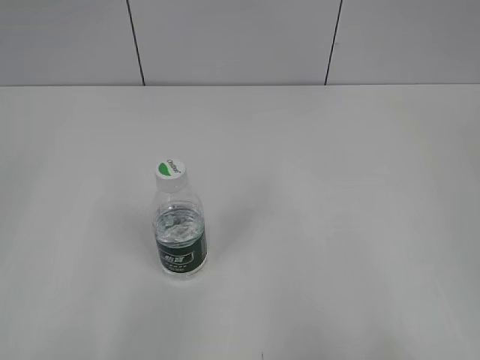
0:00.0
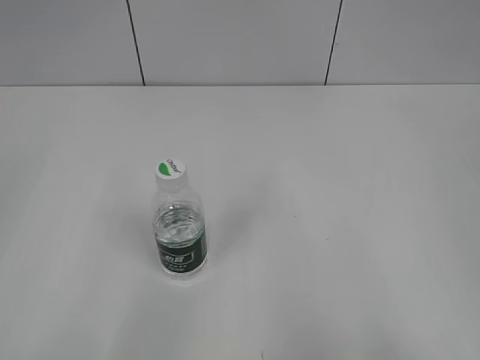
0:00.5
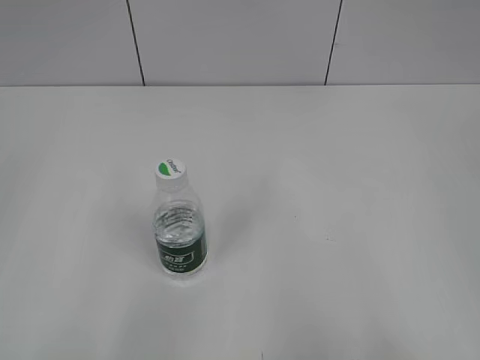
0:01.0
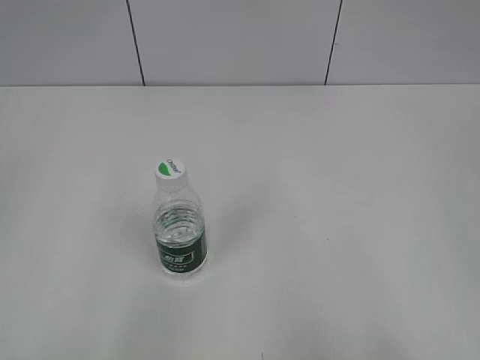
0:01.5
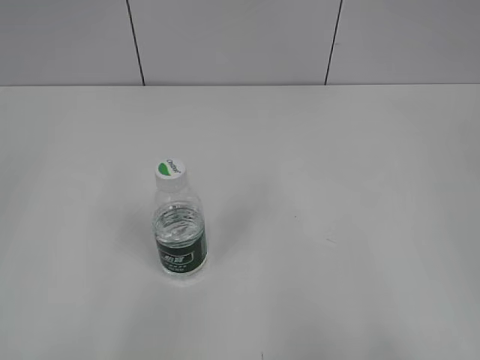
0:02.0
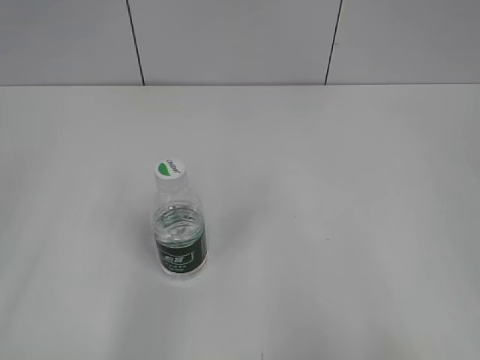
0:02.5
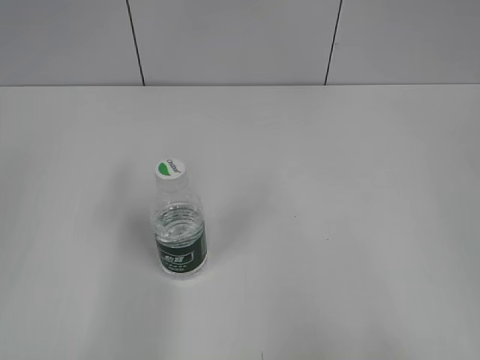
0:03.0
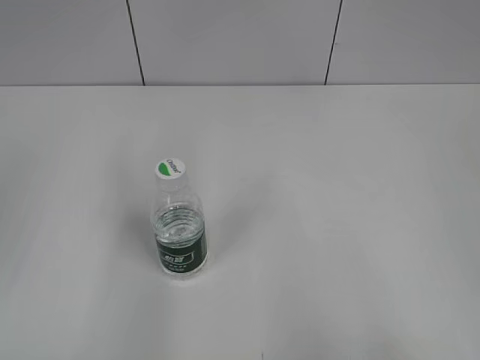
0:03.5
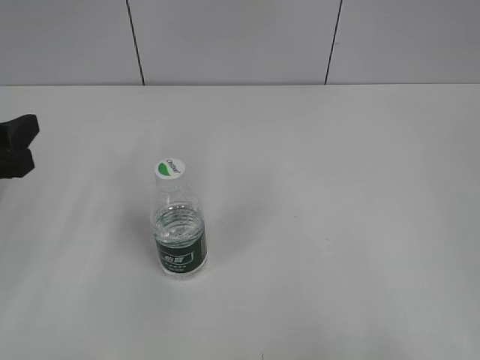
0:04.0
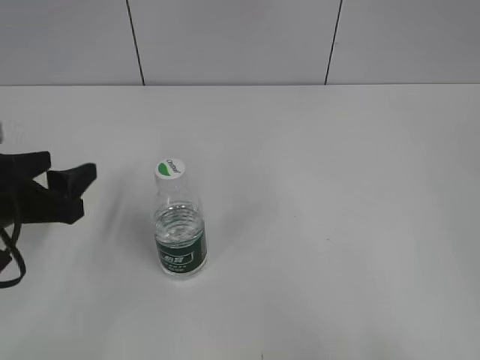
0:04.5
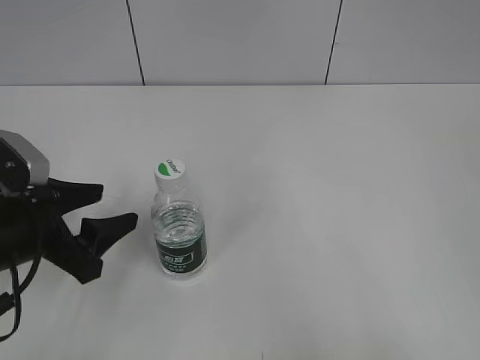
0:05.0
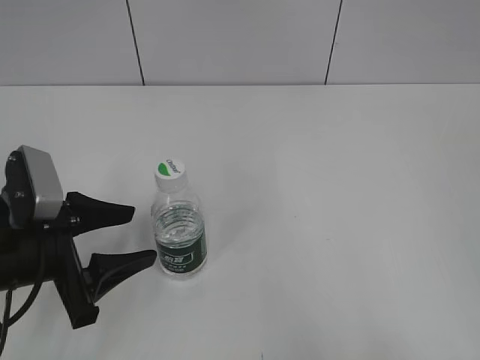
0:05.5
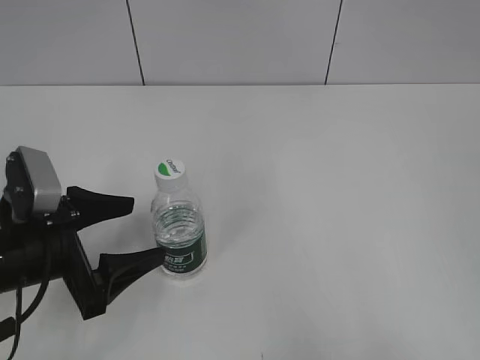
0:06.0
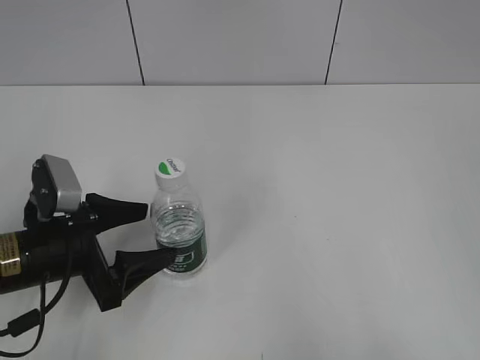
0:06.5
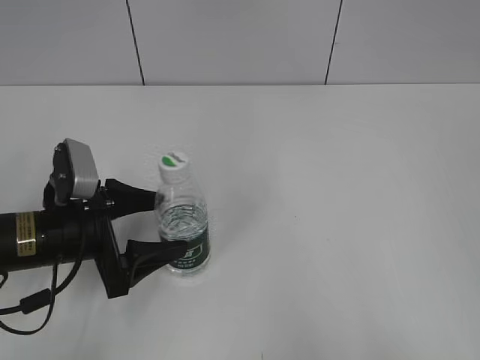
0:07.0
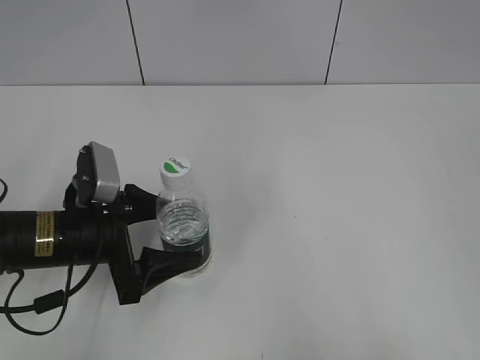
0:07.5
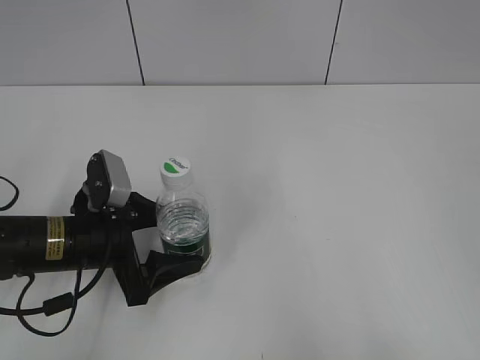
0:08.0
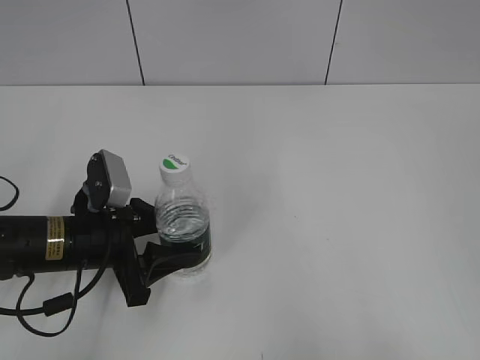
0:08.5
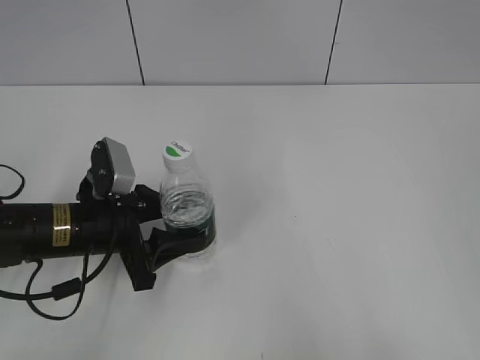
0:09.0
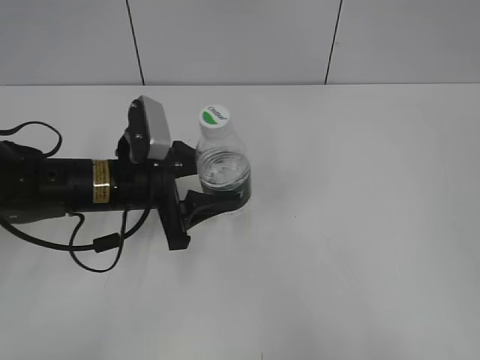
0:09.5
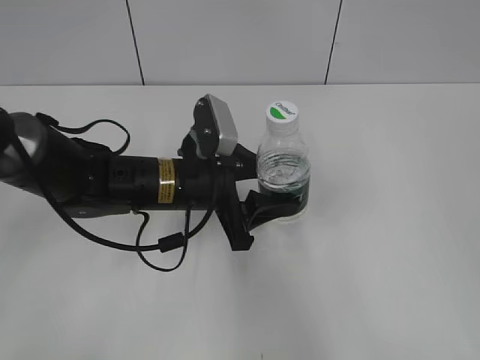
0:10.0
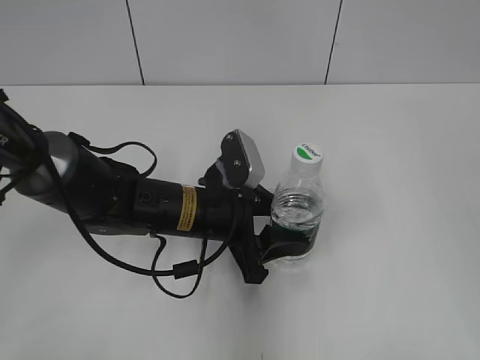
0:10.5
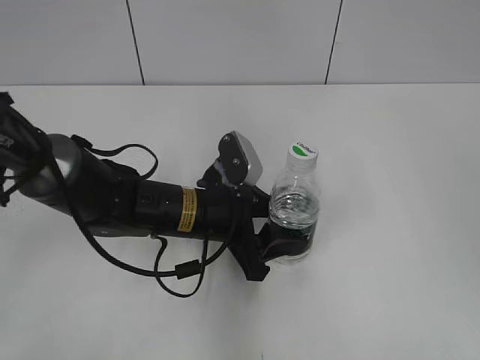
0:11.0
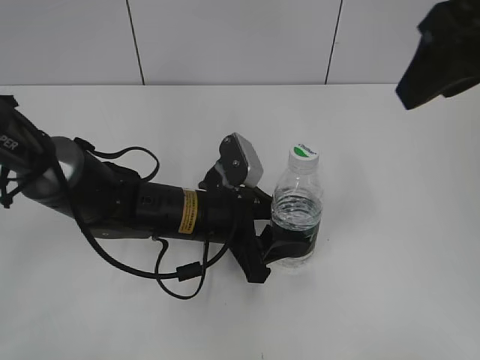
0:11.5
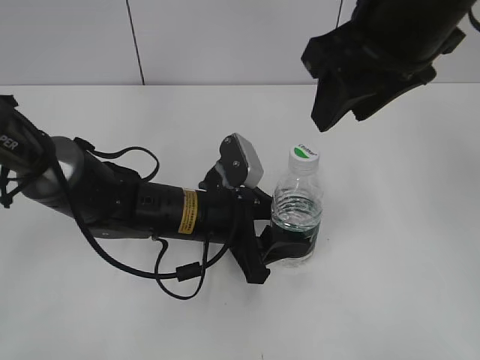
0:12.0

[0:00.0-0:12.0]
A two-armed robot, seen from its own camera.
Step, 0:00.0 to 0:08.5: Grasp the bottle and move it to the center of the table with the left gripper.
Step, 0:09.0 to 0:11.0: Lift the bottle and move it to the center of the table with the left gripper.
0:02.0 to 0:04.0: The left gripper moves forward, roughly 20 cm.
0:04.0 to 0:06.0: The left gripper heads downward and to the right, covering some 10 cm, and opens up.
0:06.0 to 0:08.0: The left gripper moves about 5 cm.
0:08.0 to 0:10.0: The left gripper shifts approximately 10 cm to the right and forward, and closes up. The right gripper moves about 5 cm.
0:10.0 to 0:12.0: The right gripper is displaced forward and to the left by some 30 cm, and closes its fingers.

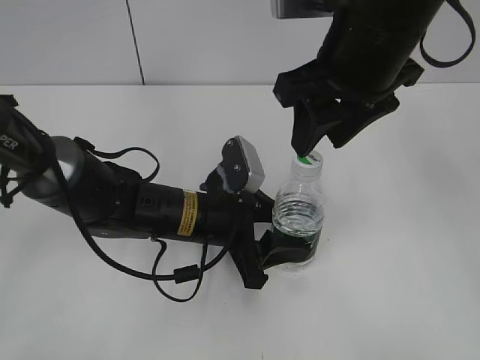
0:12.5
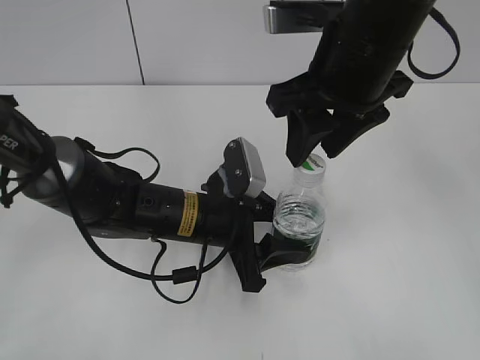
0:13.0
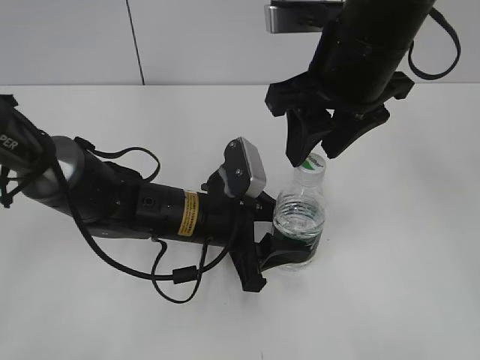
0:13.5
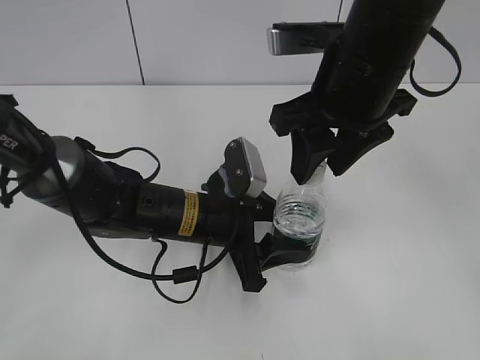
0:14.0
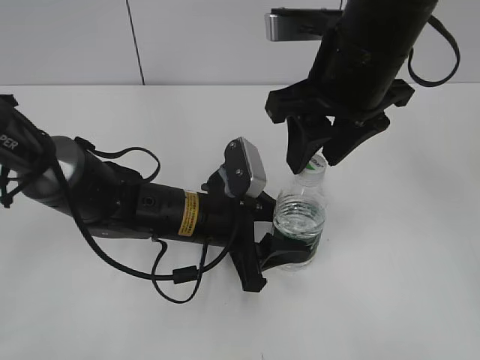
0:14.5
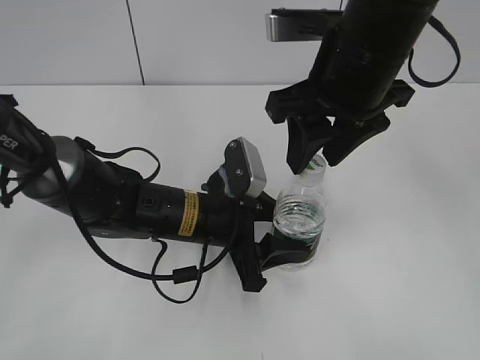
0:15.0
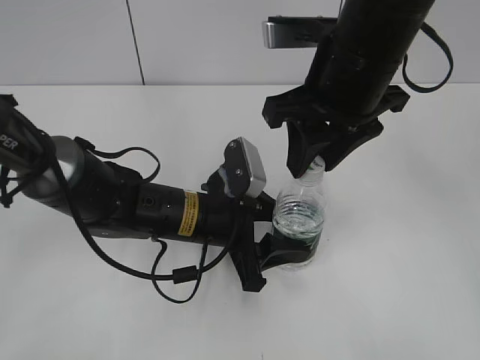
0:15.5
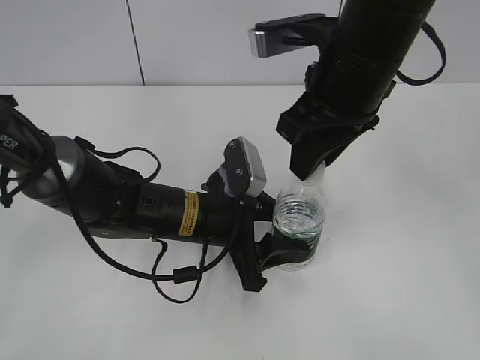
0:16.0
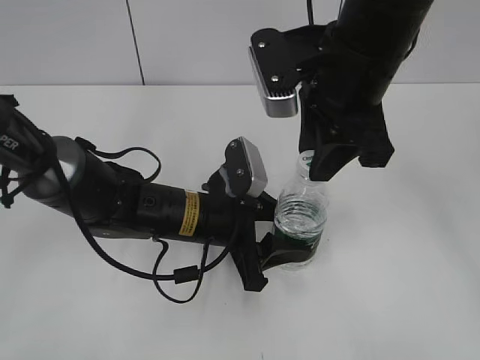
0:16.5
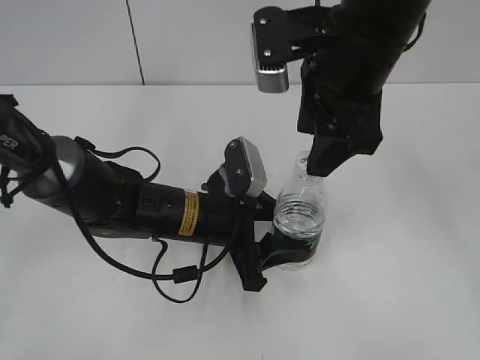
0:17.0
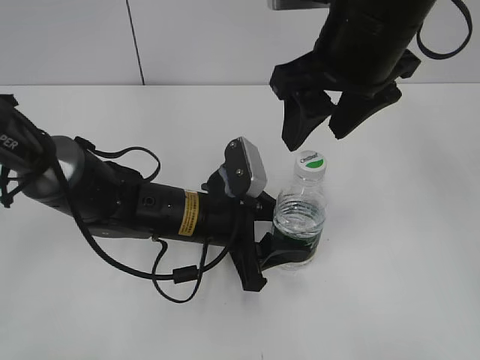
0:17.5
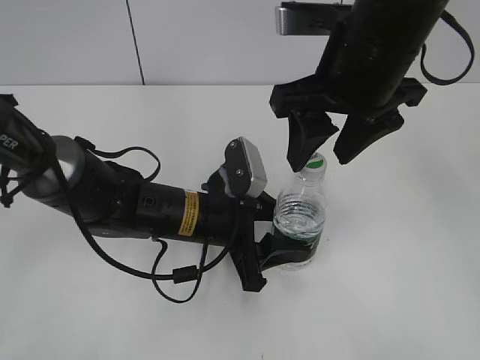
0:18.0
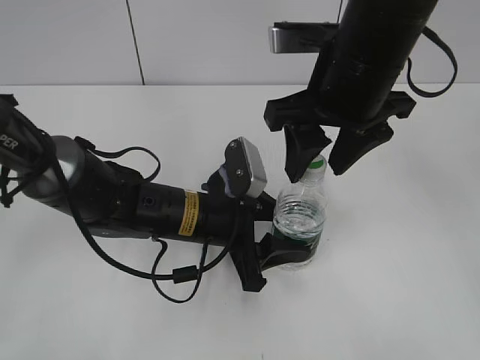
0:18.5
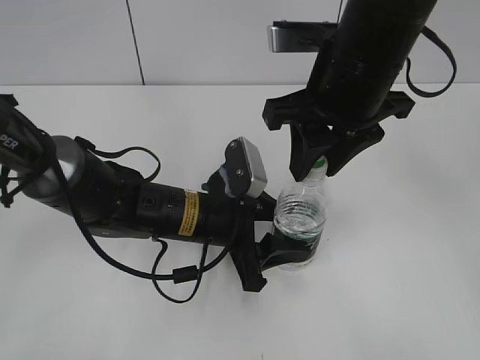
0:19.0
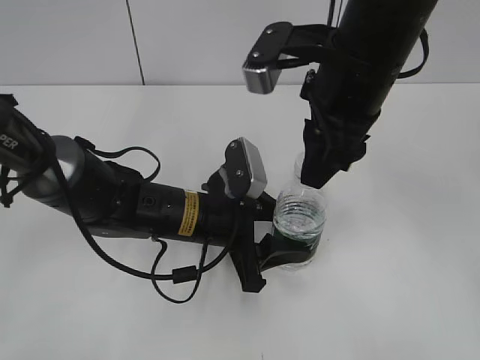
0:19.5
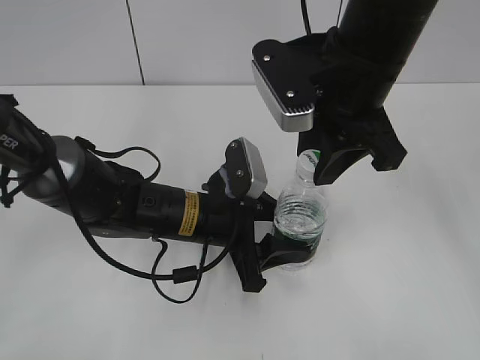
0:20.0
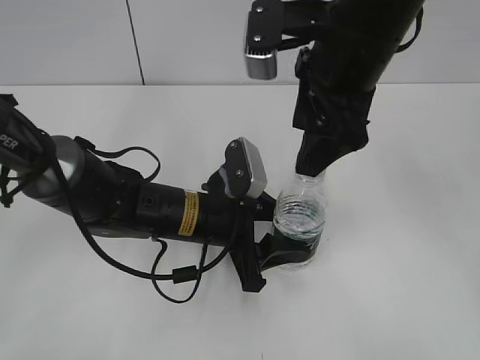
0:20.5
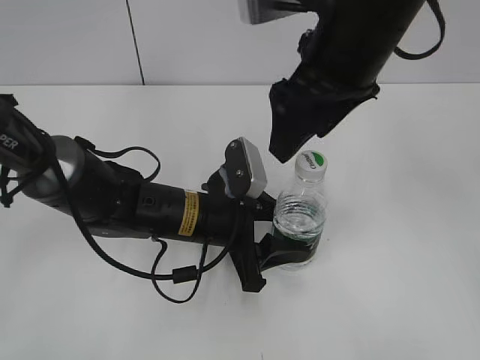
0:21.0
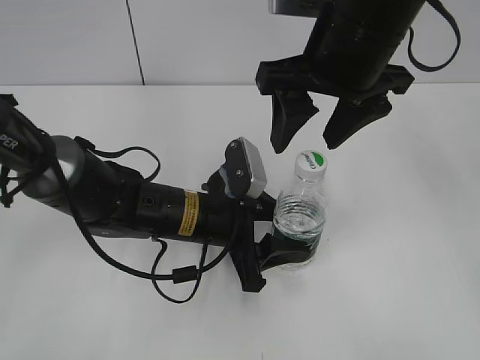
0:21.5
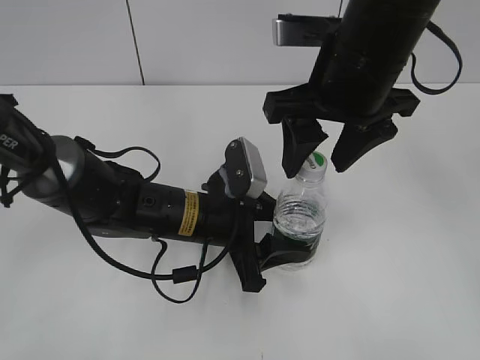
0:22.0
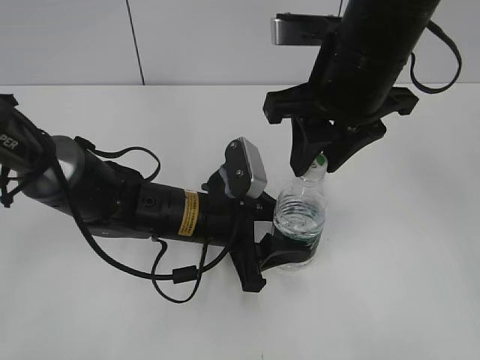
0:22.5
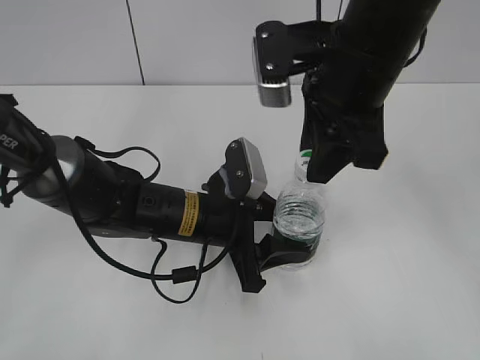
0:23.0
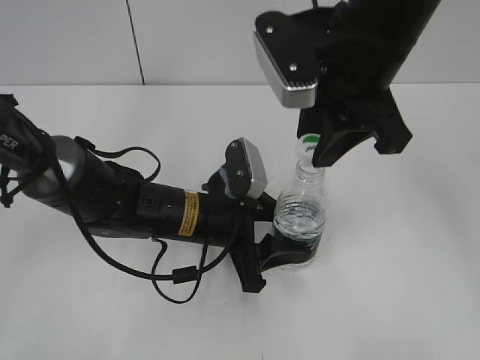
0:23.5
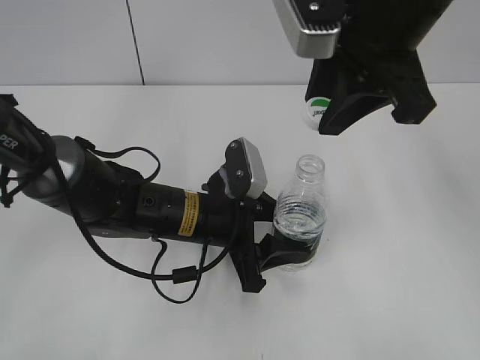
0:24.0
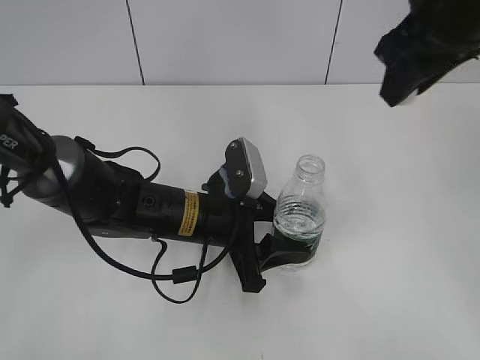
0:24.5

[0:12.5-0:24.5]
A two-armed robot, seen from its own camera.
Step, 0:12.5 to 0:23.5: Unscrew the bottle cap with the right gripper while holding the bottle with the left gripper.
0:12.5 to 0:14.5: The grippers stay close to where they were, moving slightly.
0:16.5 to 0:18.5: The right gripper opens.
0:18.5 to 0:20.5: The right gripper opens its fingers.
0:20.5 to 0:22.5: The right gripper closes up.
0:22.5 to 0:24.5: The right gripper travels to the right and upward by roughly 10 cm.

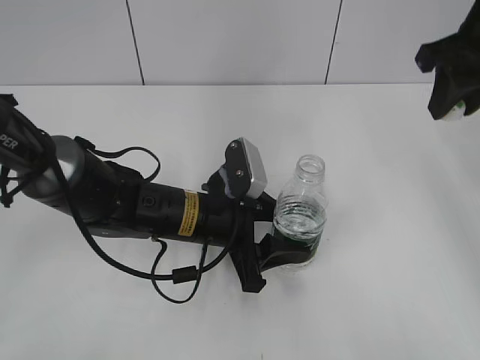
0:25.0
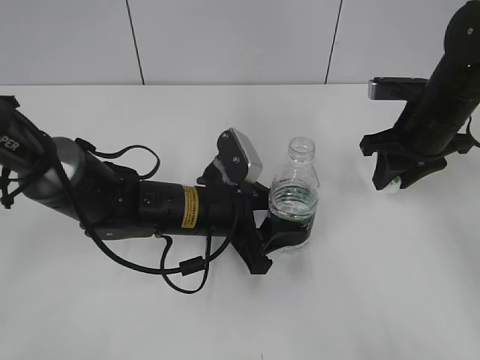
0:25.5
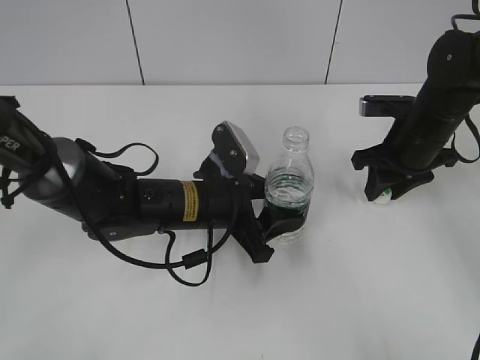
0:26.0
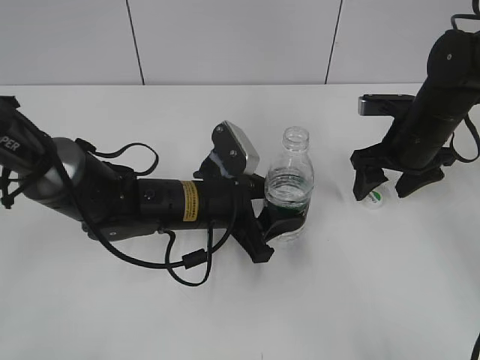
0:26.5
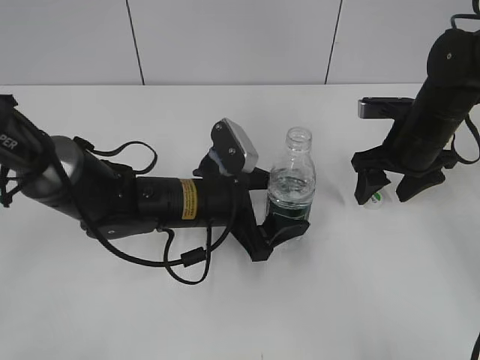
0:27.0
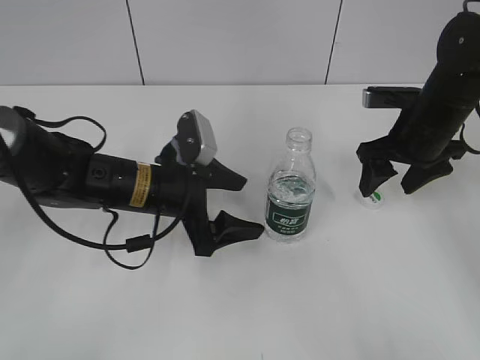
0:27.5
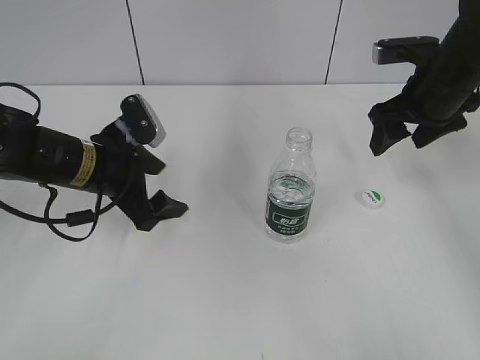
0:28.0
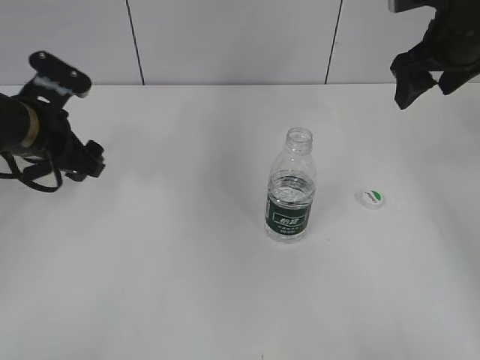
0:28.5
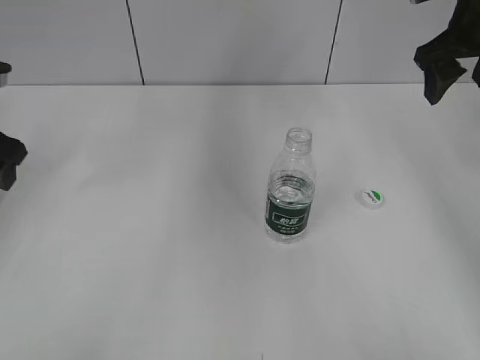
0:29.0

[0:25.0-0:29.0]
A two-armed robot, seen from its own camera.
Step, 0:25.0 to 0:26.5: Place the bottle cap on the table with the right gripper.
0:25.0 to 0:27.0: The left gripper opens its fingers, while the right gripper heads downward, covering roughly 15 cm, and opens.
0:27.0 to 0:29.0: The left gripper heads to the left and upward, covering roughly 30 cm; the right gripper is displaced upward by approximately 15 cm.
